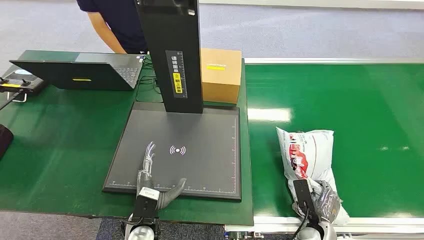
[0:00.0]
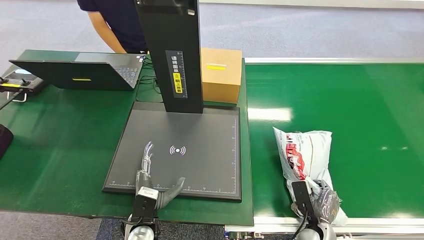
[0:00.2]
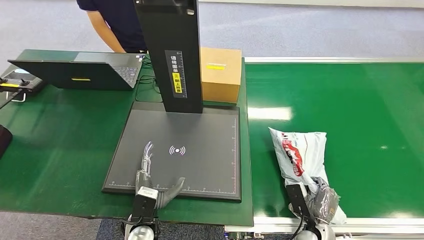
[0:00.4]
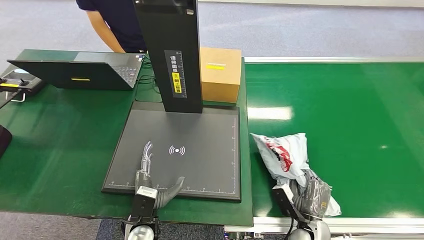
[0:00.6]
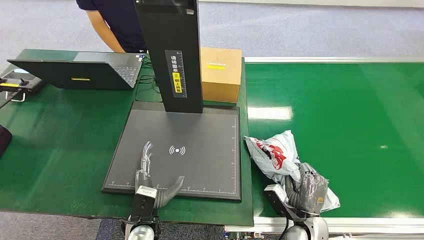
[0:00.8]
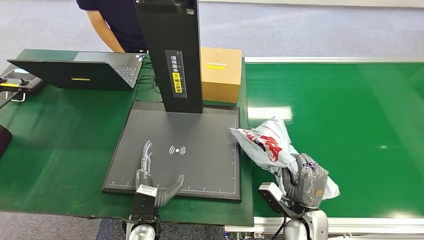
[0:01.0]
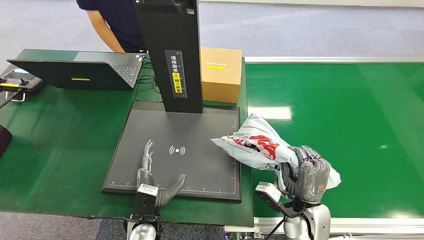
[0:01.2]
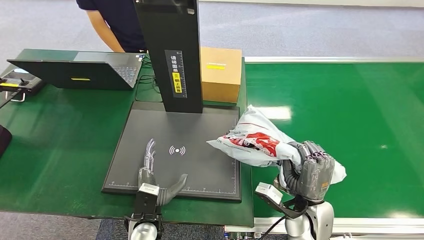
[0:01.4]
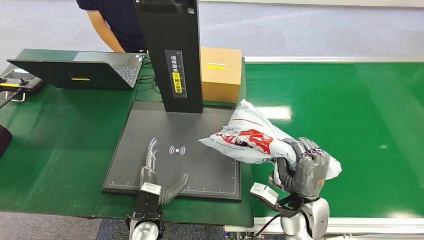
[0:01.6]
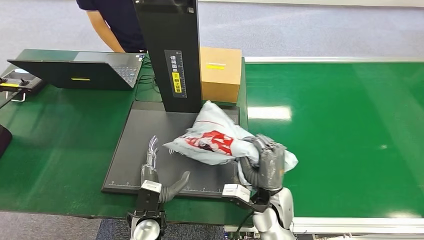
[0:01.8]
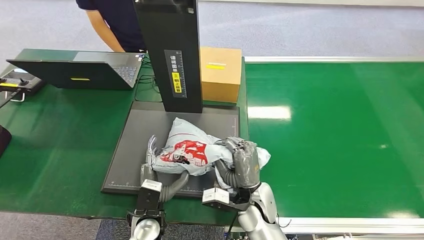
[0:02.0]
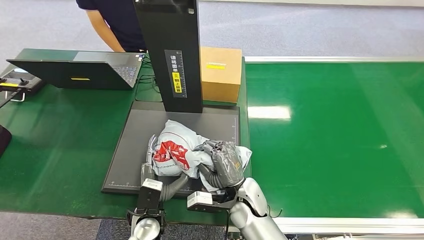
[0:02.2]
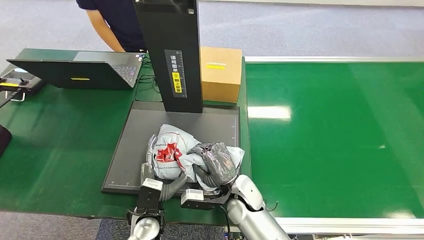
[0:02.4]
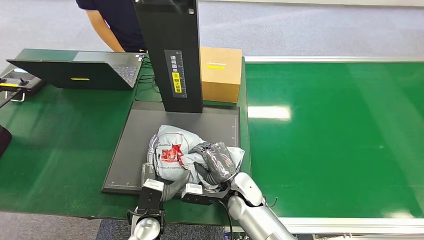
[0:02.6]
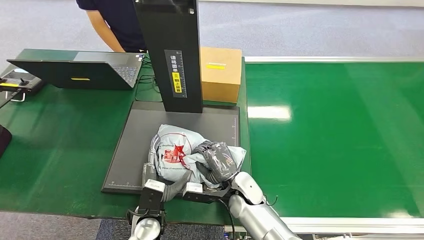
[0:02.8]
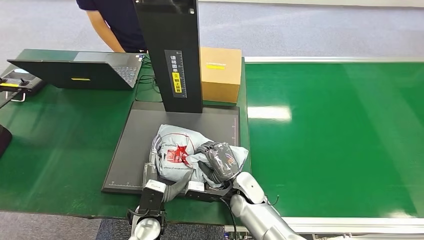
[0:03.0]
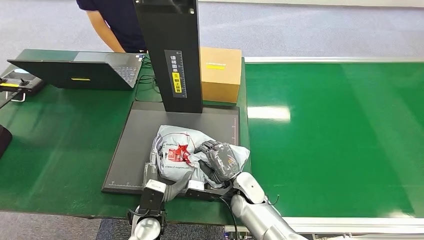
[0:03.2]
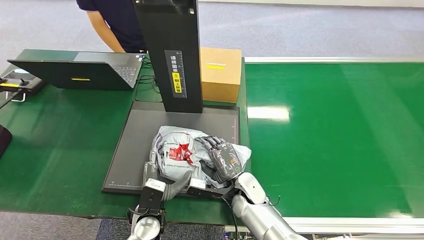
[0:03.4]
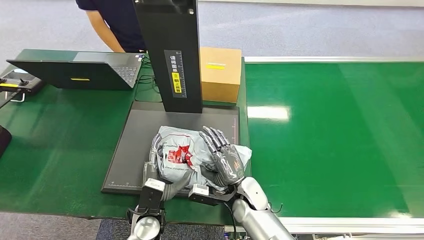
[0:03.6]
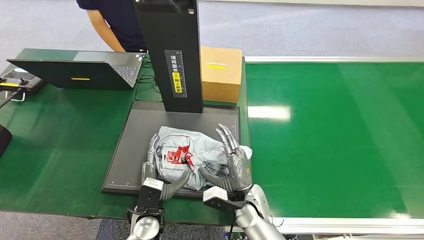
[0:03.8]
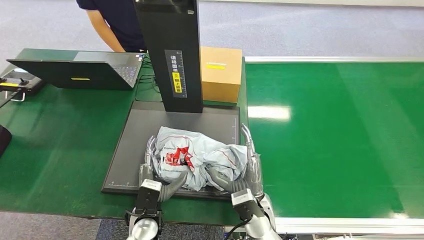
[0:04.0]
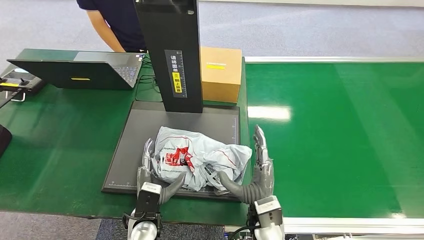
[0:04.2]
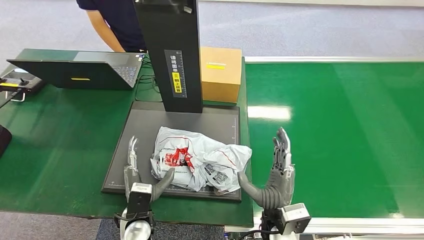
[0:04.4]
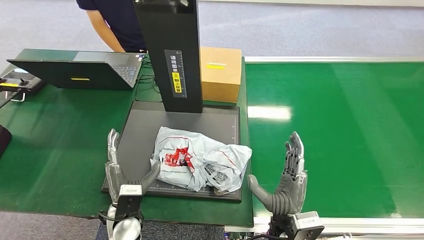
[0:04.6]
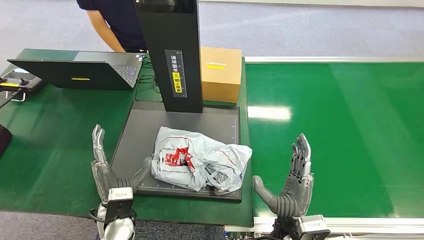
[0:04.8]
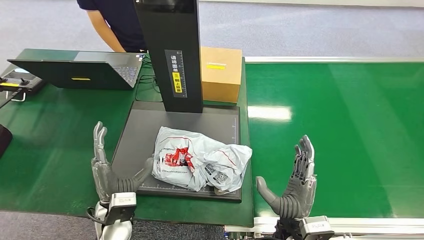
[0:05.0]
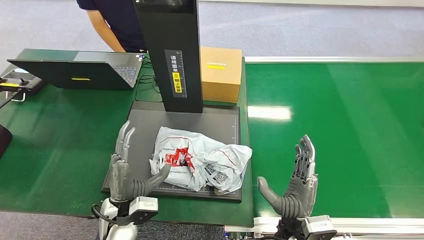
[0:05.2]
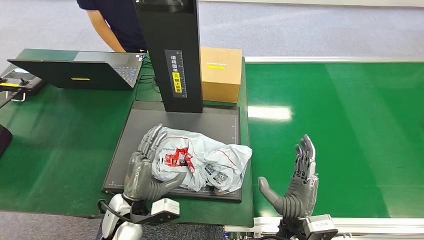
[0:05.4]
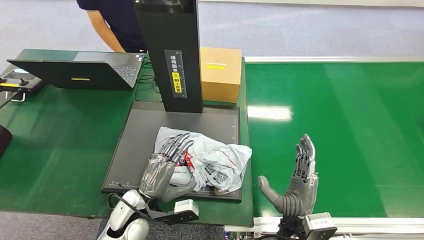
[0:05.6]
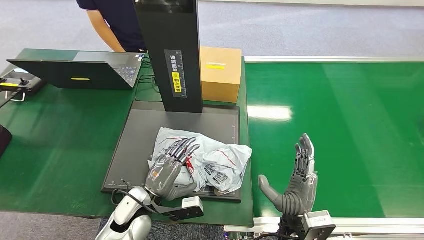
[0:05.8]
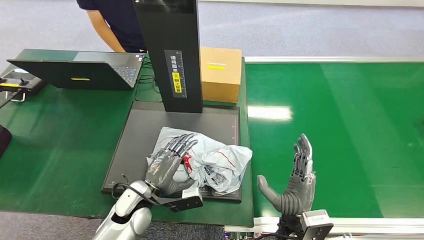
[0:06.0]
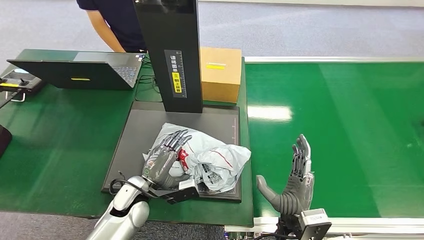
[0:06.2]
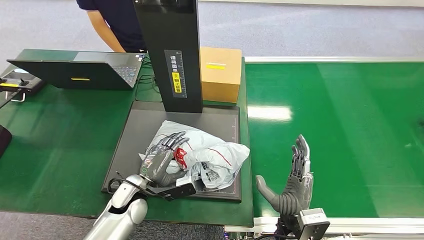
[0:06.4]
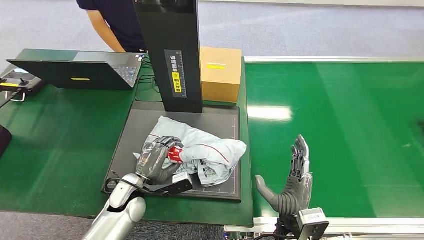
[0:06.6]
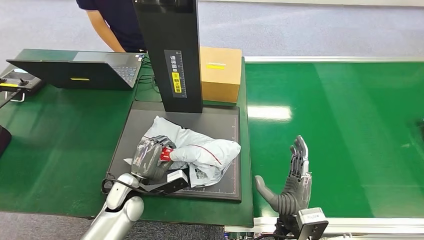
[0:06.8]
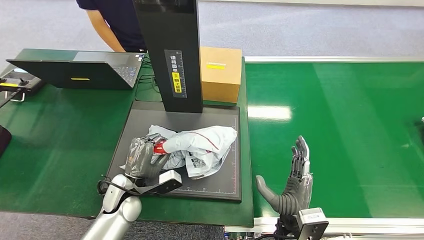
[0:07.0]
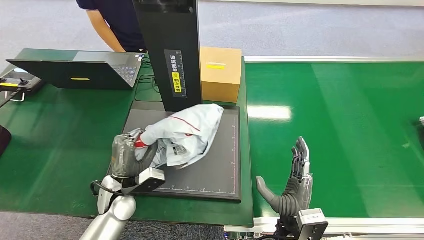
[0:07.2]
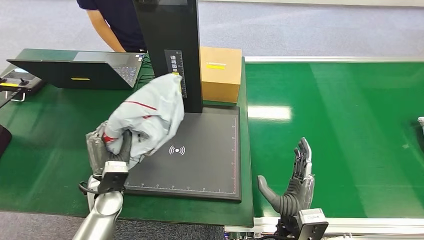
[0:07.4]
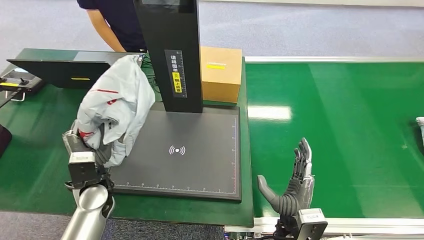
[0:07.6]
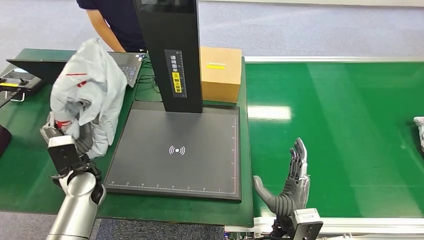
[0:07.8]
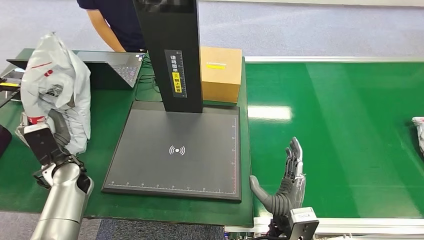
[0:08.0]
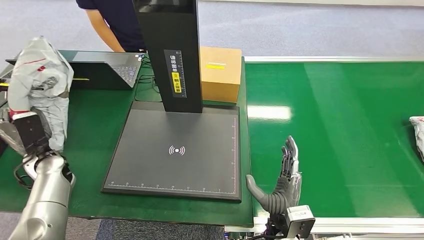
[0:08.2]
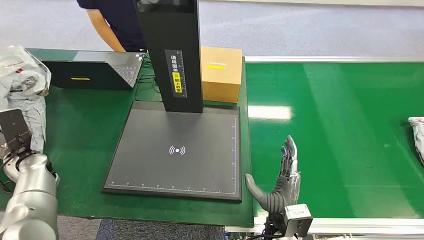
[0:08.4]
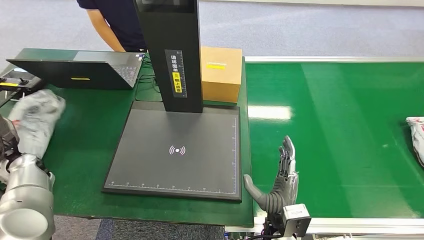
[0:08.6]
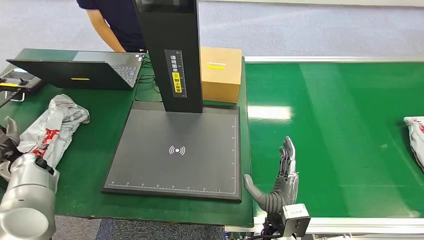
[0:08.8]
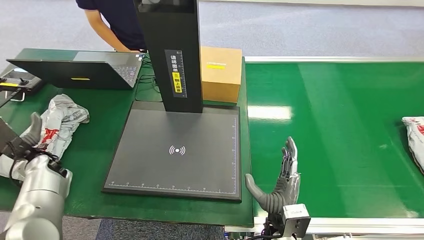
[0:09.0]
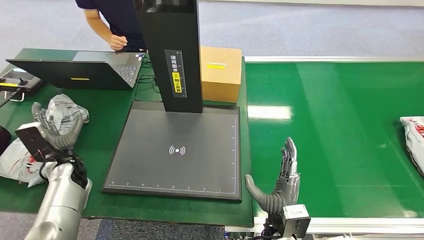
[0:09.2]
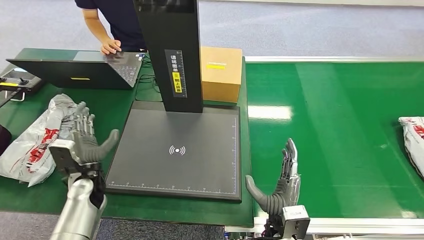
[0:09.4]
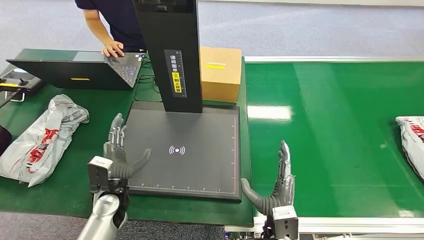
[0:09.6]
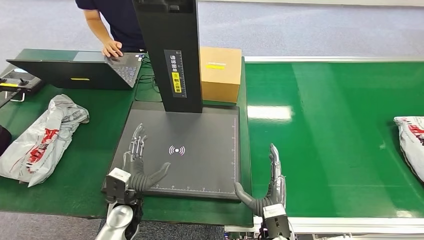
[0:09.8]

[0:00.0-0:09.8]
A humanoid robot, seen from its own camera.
Step, 0:00.0 to 0:01.8: Pick up the package from the conveyor belt.
Step, 0:02.0 to 0:04.2: Place the package onto the inbound machine.
Step, 0:04.4 to 0:08.0: Pick up the package from the inbound machine.
Step, 0:08.2 to 0:09.8: Place the package into the parcel locker.
0:01.4 to 0:02.8: The right hand heads to the left and forward, covering some 15 cm.
0:02.8 to 0:04.2: The right hand heads backward, covering approximately 10 cm.
0:04.2 to 0:05.6: The right hand travels to the right by about 5 cm; the left hand shifts roughly 5 cm upward.
0:05.6 to 0:07.0: The left hand heads forward, covering about 5 cm.
0:08.4 to 0:09.8: The left hand travels to the right and backward by about 30 cm.
